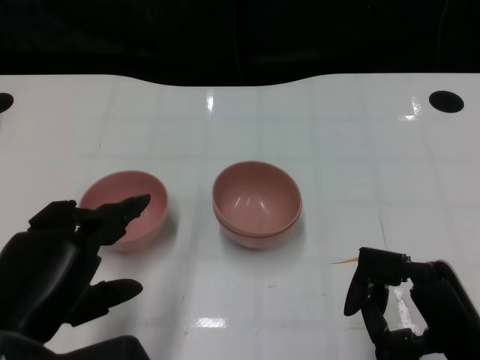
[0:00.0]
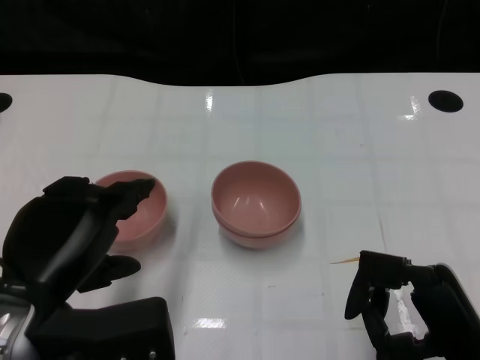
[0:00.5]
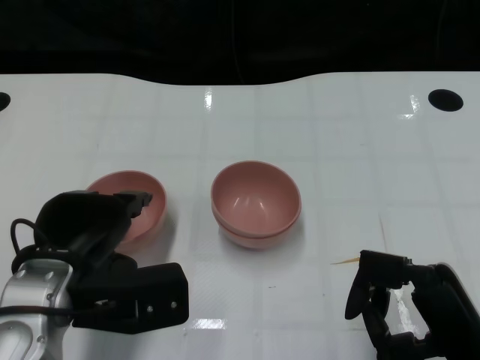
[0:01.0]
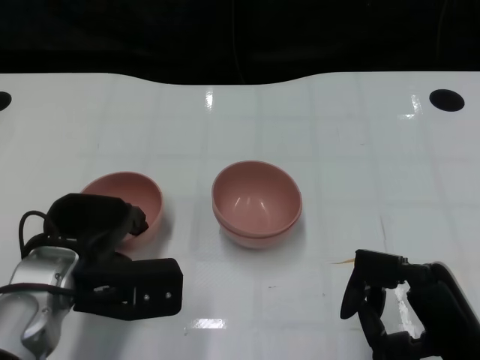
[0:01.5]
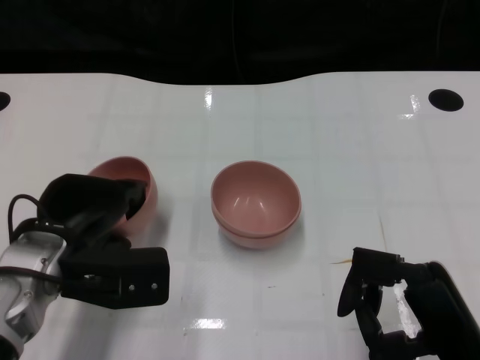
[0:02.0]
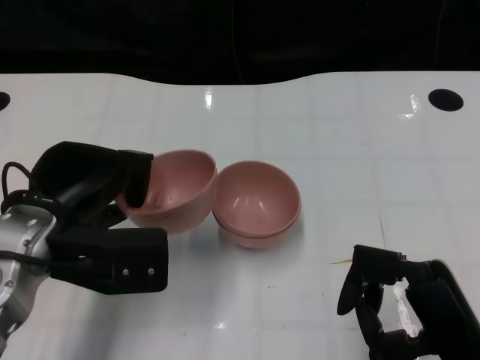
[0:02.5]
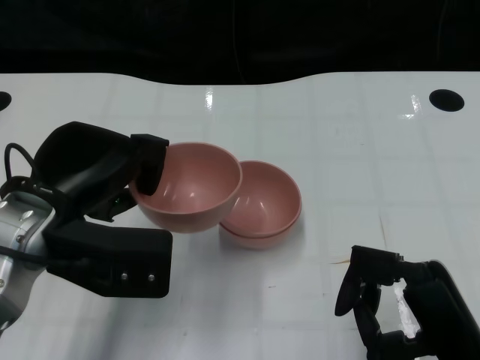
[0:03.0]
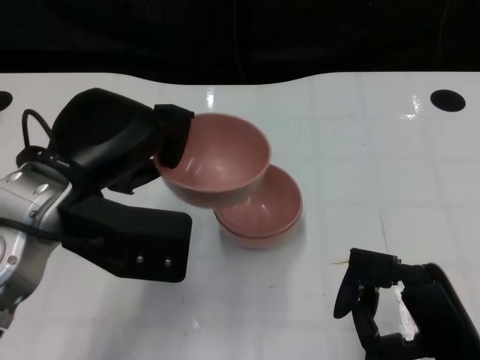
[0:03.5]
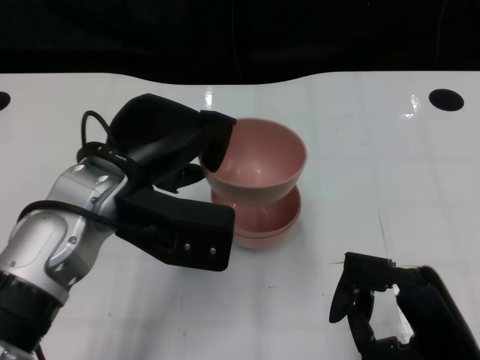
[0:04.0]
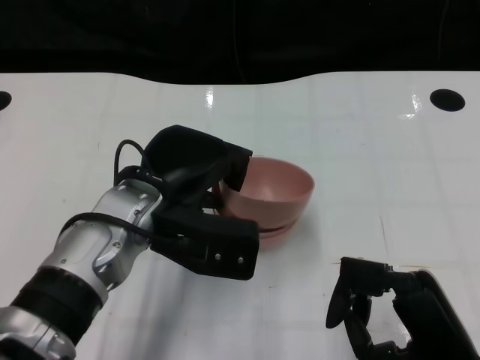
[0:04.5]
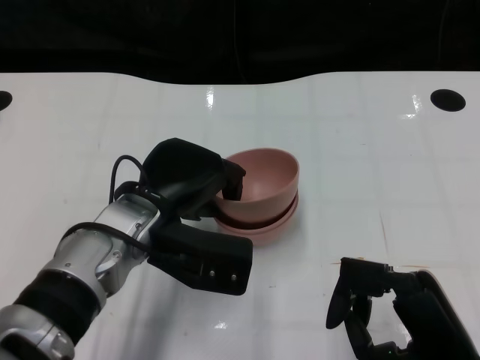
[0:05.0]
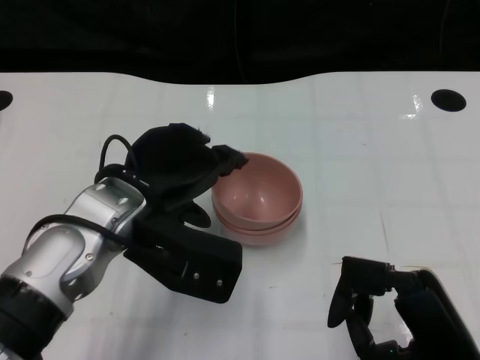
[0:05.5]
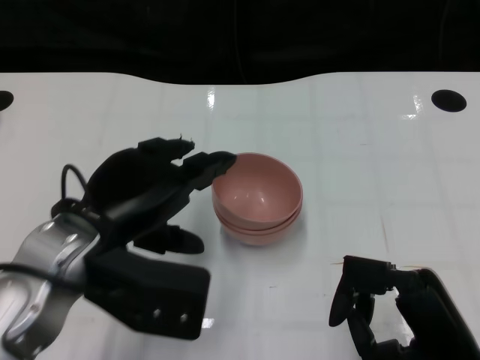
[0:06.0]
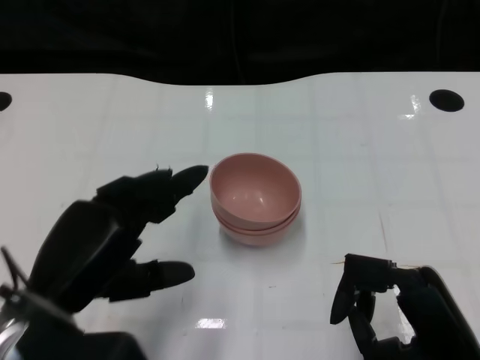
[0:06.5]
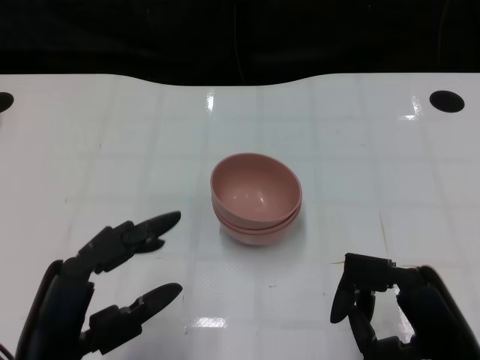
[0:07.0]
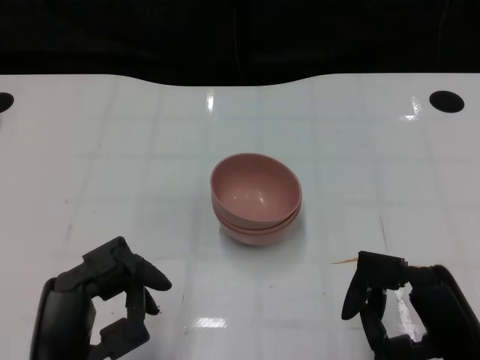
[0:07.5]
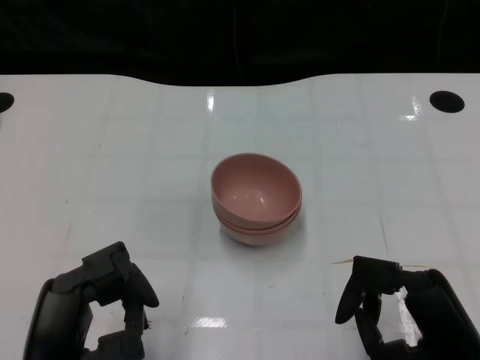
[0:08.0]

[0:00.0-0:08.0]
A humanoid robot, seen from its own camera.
Task of the whole recording: Pick up the bowl on one side of the table and place it on top of the middle bowl, then pick up the bowl on the other side of the table and place it on top of the middle bowls.
Step, 0:00.0 to 0:02.0: Grasp the bowl on the left with the left gripper.
Step, 0:02.5 to 0:05.5: Place the bowl on the left onto the bowl in the middle with left gripper.
0:00.0 to 0:02.0: The left hand goes roughly 10 cm forward.
0:02.0 to 0:04.0: The left hand is displaced upward and to the right by approximately 10 cm.
0:06.0 to 0:08.0: The left hand moves backward and downward, some 15 cm.

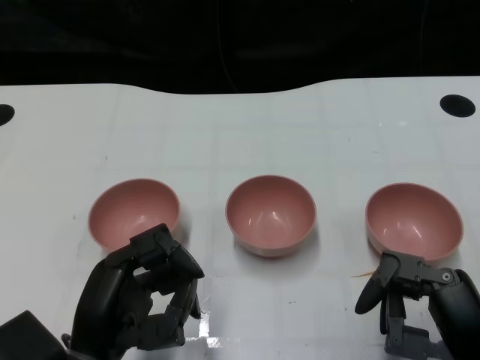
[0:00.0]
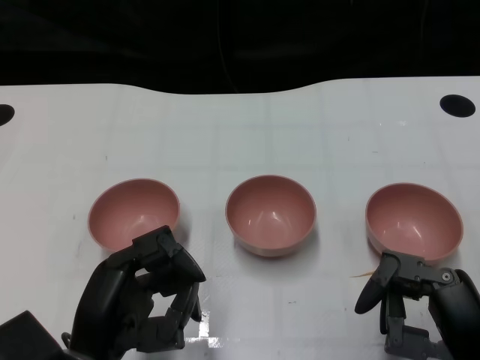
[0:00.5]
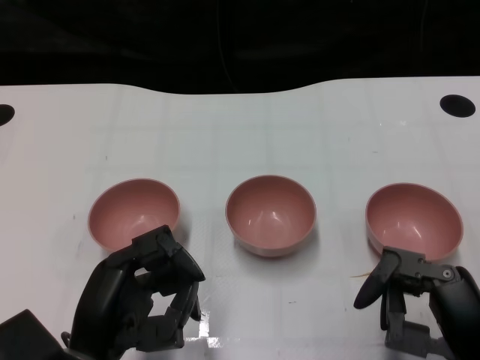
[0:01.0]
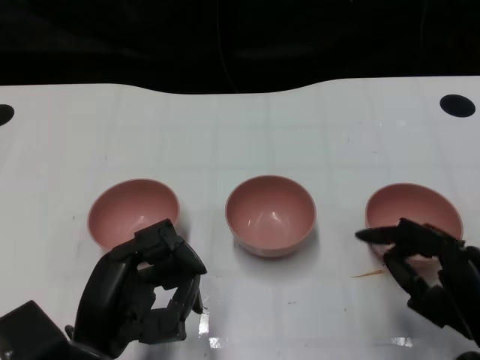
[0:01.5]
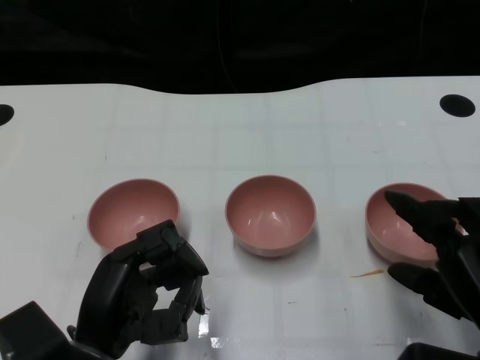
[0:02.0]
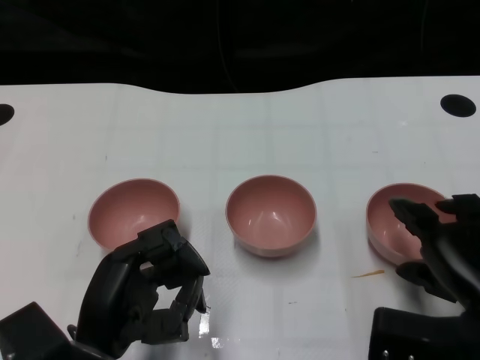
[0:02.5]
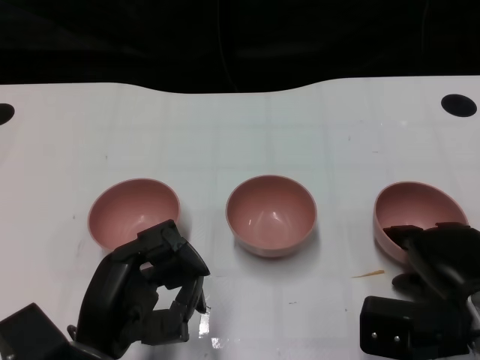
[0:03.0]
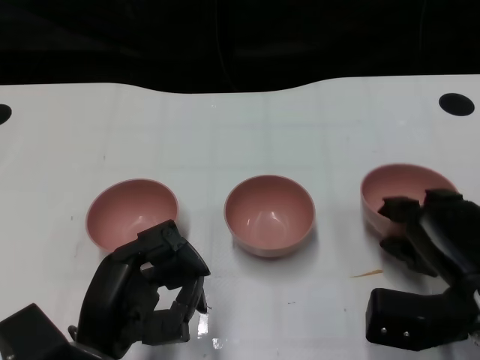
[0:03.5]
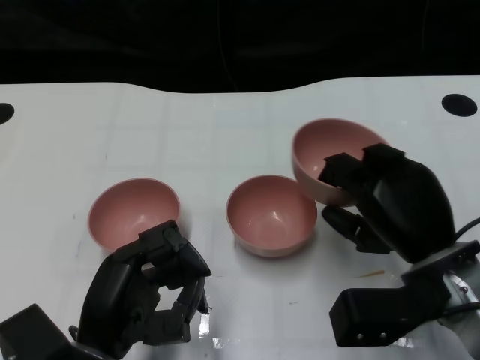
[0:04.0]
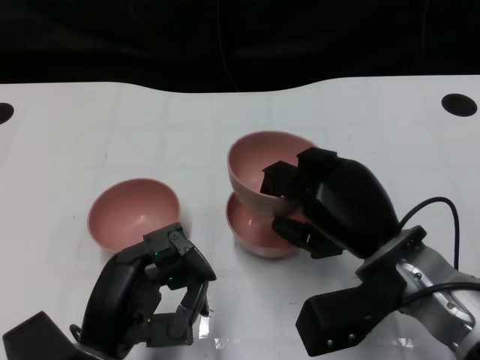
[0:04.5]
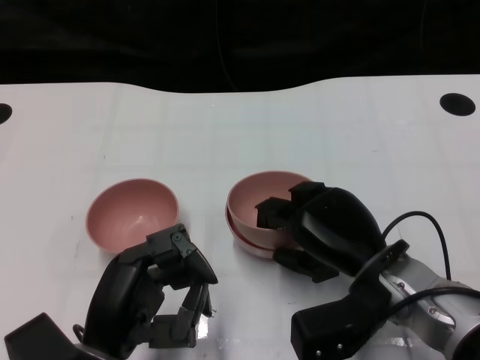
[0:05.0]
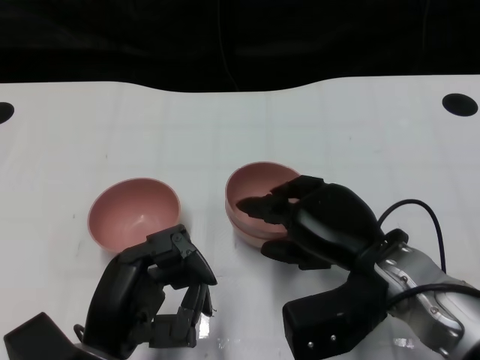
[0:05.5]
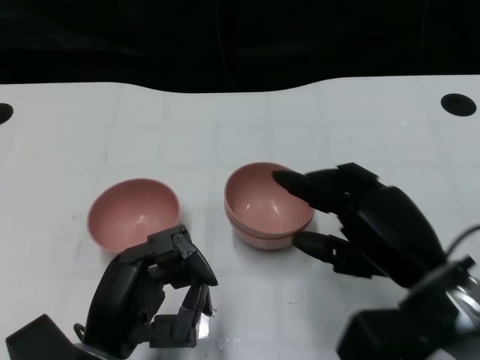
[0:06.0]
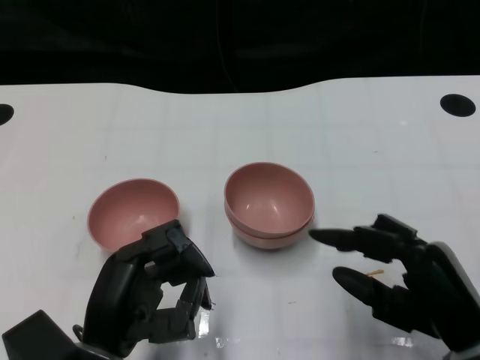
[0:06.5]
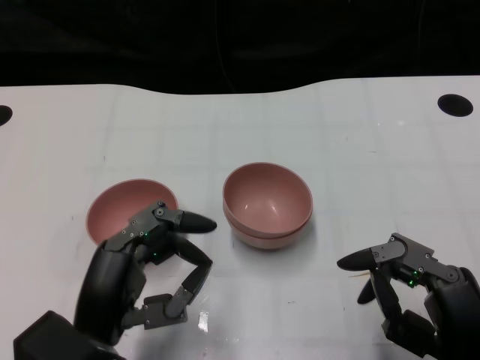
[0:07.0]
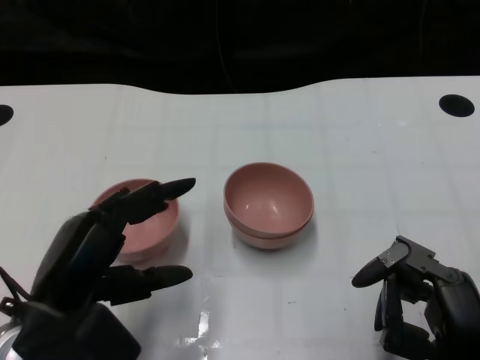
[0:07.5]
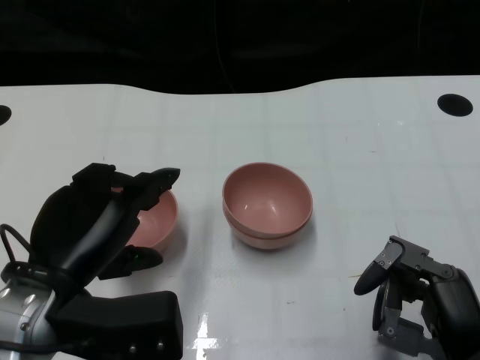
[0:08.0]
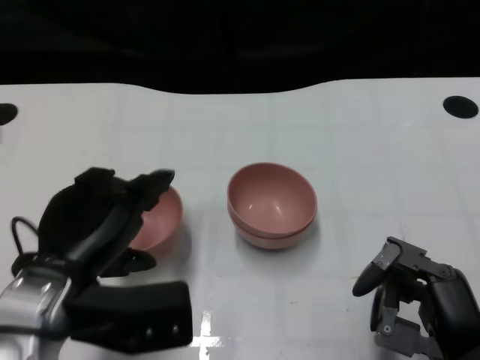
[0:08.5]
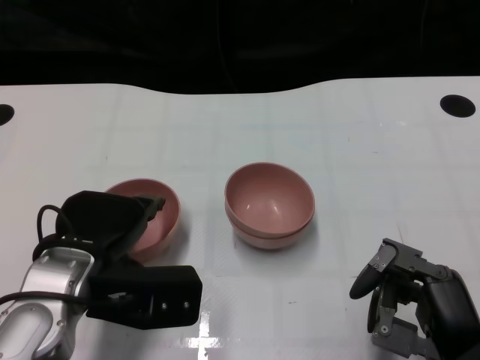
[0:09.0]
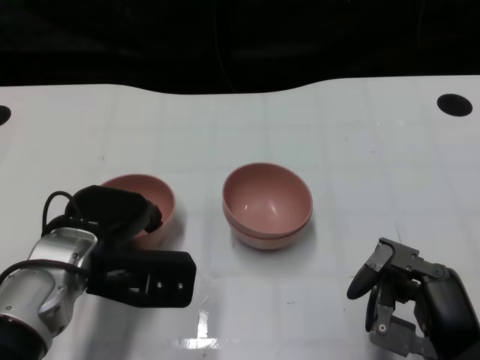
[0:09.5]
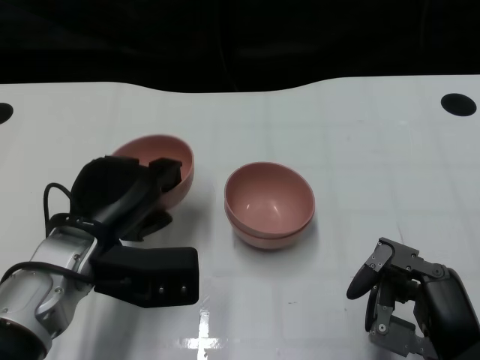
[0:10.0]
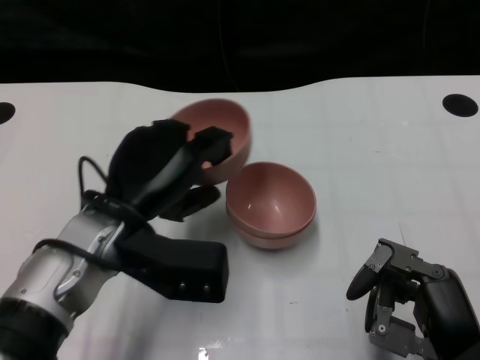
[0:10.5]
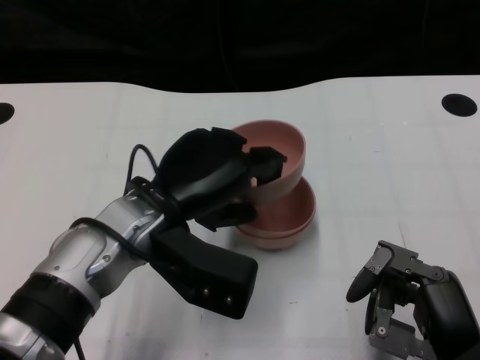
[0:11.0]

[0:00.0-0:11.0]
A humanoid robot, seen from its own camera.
Task of the whole recording: Pick up the bowl on one side of the table and place it on top of the middle bowl, then pick up the bowl on the other side of the table and place it on top of the middle bowls.
Step, 0:01.0 to 0:03.0: Grasp the bowl on the right with the right gripper.
Step, 0:03.5 to 0:06.0: Place the bowl on the right onto the bowl in the middle with right gripper.
Step, 0:06.5 to 0:09.5: Grasp the bowl on the left with the left gripper.
0:02.0 to 0:03.5: The right hand moves forward, roughly 10 cm.
0:03.5 to 0:05.5: The right hand goes about 10 cm to the left.
0:05.5 to 0:07.5: The right hand heads backward and to the right, covering roughly 15 cm. Meanwhile the left hand moves about 5 cm.
0:07.5 to 0:09.0: The left hand moves forward, about 5 cm.
0:09.0 to 0:11.0: The left hand moves to the right, approximately 5 cm.

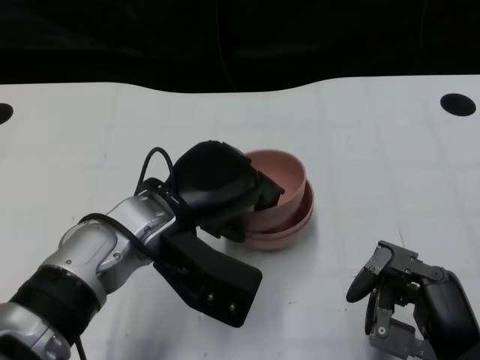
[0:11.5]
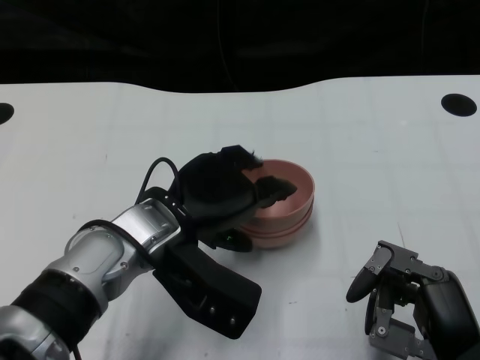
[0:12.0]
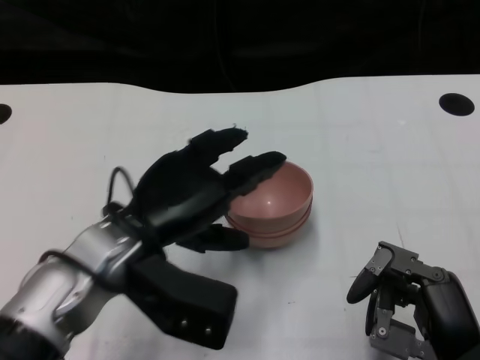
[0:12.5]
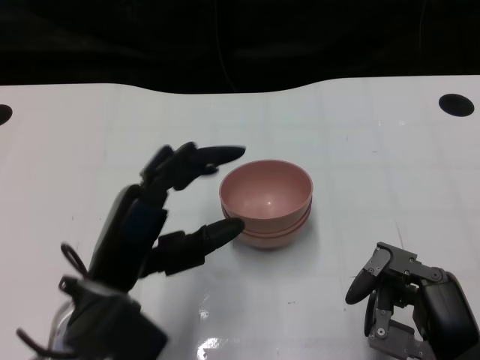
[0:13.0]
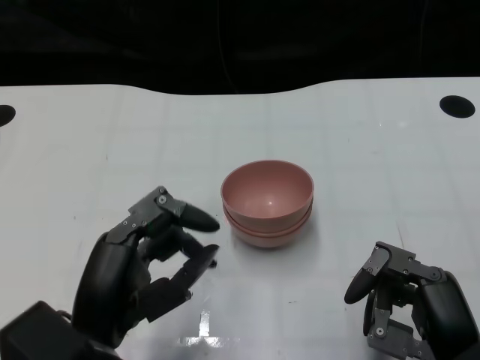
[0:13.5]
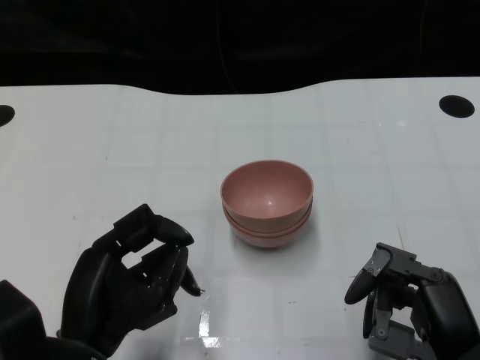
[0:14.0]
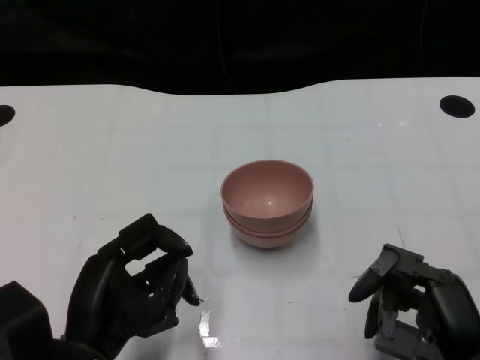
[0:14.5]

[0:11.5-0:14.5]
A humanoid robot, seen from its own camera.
Task of the whole recording: Pick up the bowl on one side of the table and place it on top of the middle bowl, then pick up the bowl on the other side of the table and place it on top of the middle bowls.
0:11.5 to 0:13.0: The left hand goes about 10 cm backward and to the left.
0:13.0 to 0:14.5: The left hand ends up approximately 5 cm from where it was.

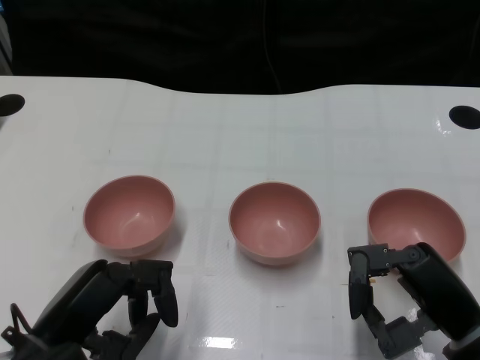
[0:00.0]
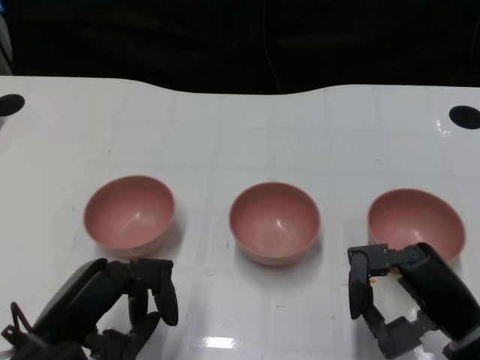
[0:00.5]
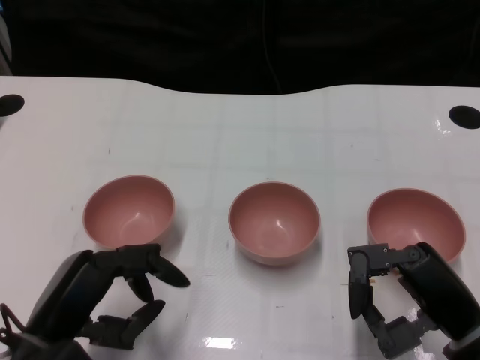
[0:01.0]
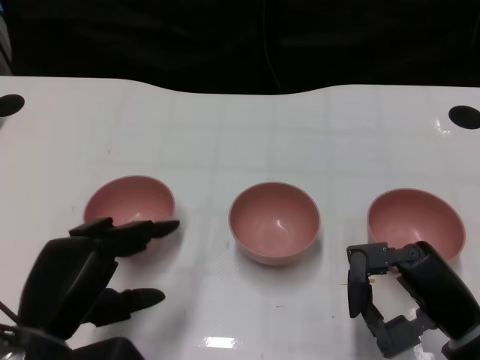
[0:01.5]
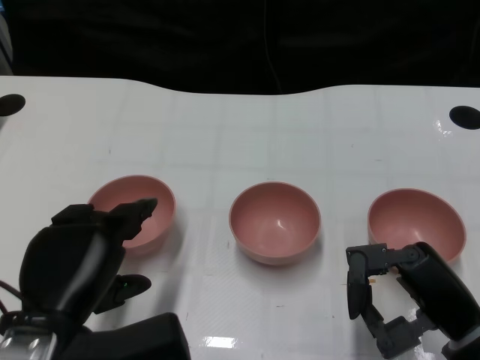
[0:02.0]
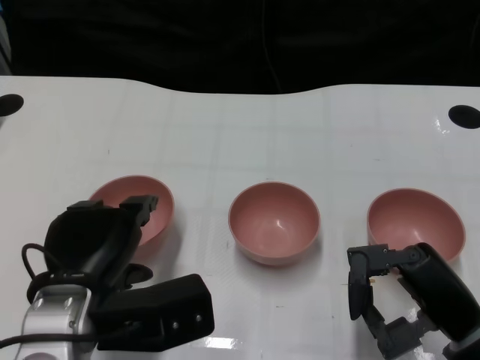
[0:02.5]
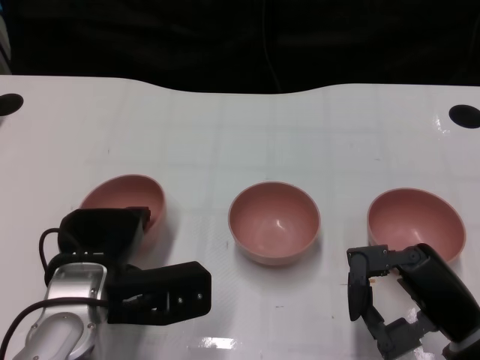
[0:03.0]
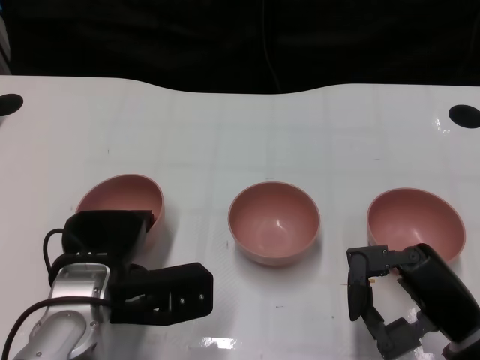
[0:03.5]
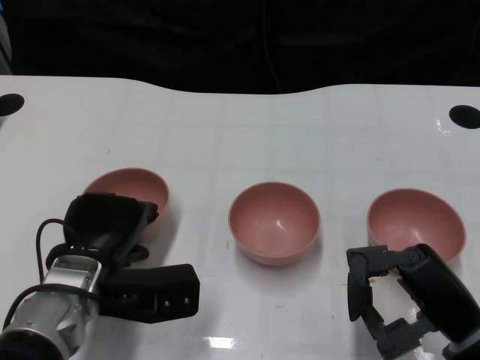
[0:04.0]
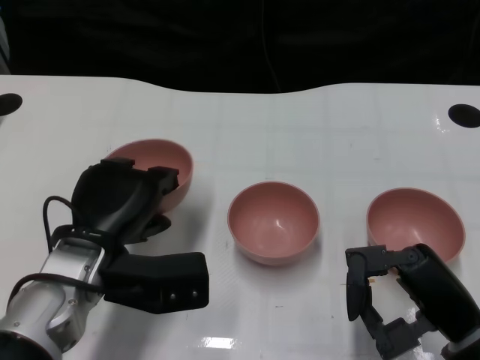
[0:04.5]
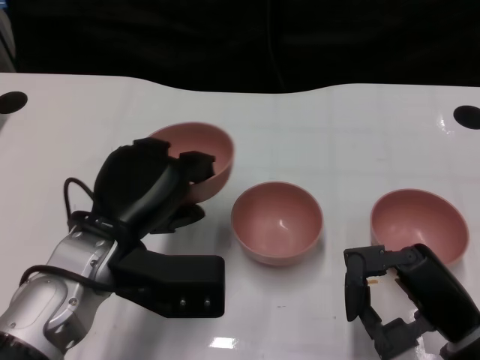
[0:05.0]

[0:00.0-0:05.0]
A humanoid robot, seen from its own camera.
Task of the whole recording: Pick up the bowl on one side of the table and place it on top of the middle bowl, then pick up the bowl on the other side of the table and place it on top of the middle bowls.
Step, 0:01.0 to 0:04.0: Grasp the bowl on the left with the left gripper.
0:02.5 to 0:05.0: The left hand changes place by about 5 cm.
